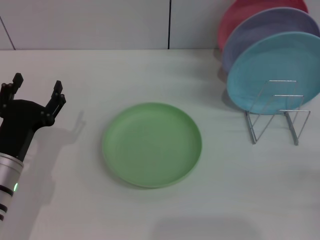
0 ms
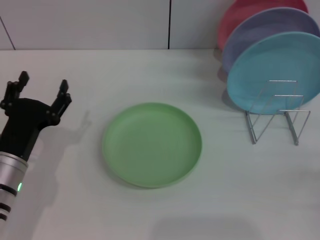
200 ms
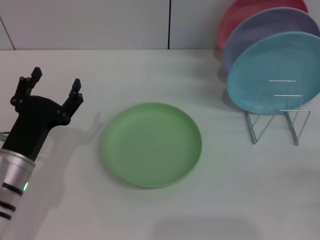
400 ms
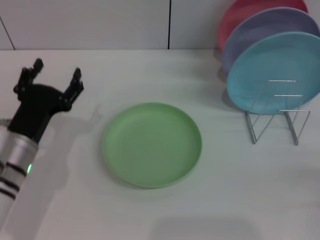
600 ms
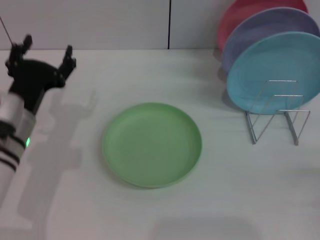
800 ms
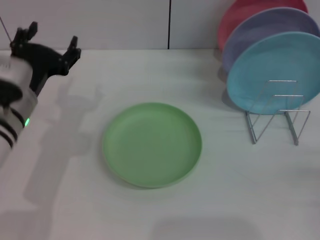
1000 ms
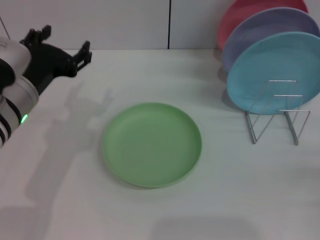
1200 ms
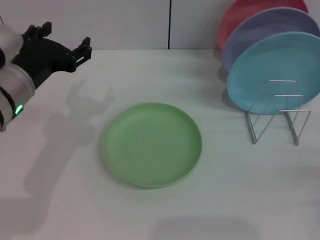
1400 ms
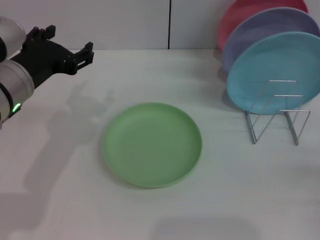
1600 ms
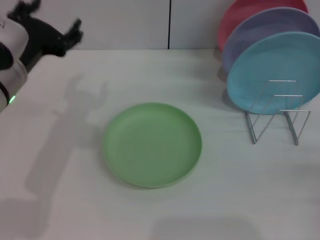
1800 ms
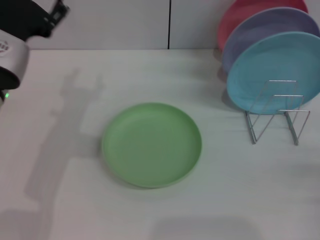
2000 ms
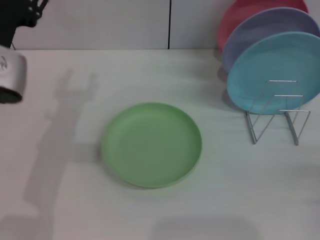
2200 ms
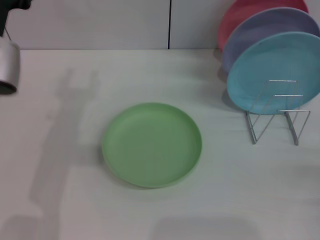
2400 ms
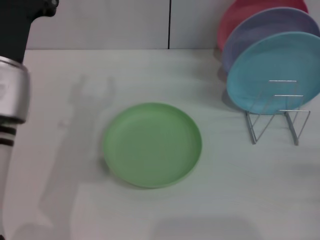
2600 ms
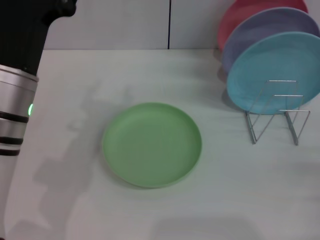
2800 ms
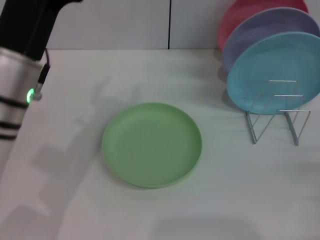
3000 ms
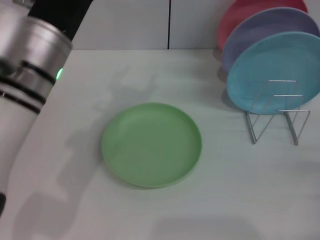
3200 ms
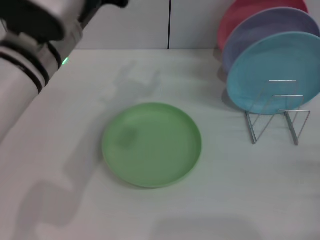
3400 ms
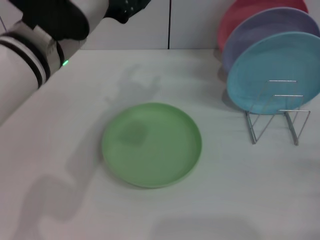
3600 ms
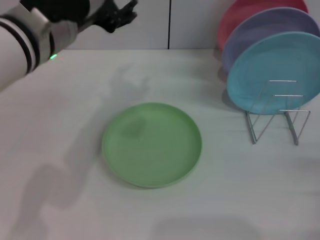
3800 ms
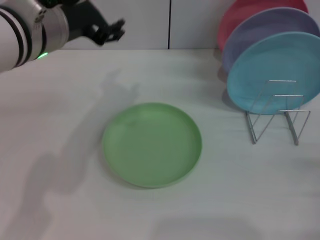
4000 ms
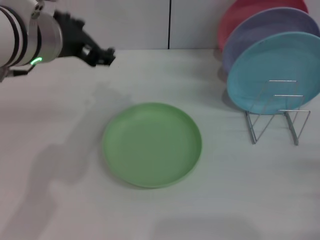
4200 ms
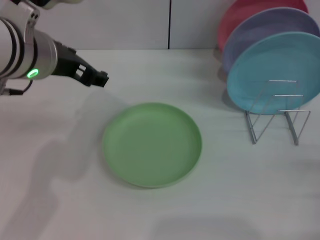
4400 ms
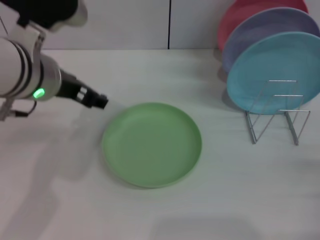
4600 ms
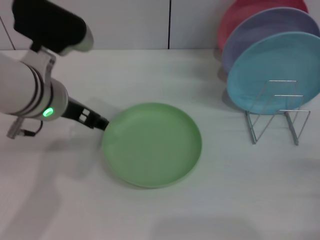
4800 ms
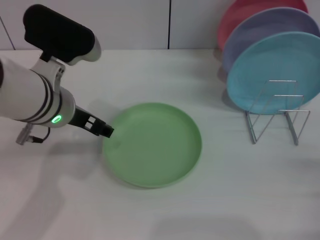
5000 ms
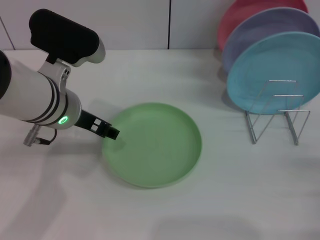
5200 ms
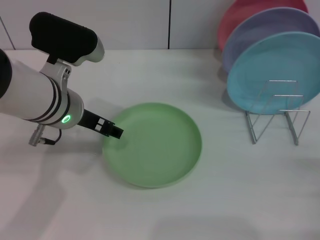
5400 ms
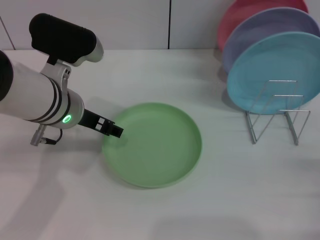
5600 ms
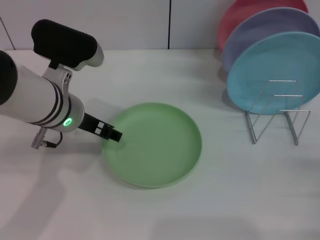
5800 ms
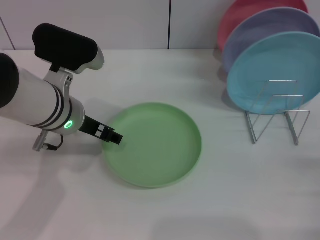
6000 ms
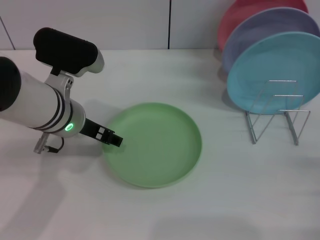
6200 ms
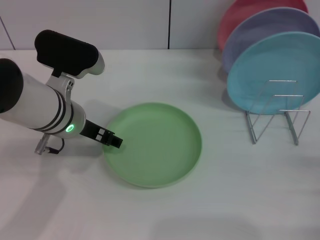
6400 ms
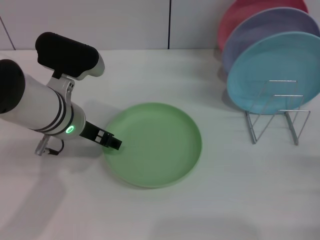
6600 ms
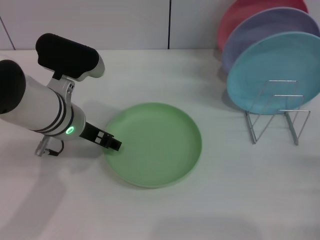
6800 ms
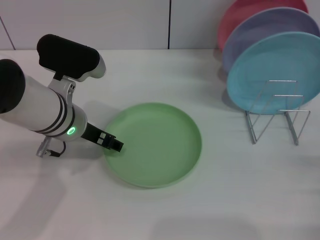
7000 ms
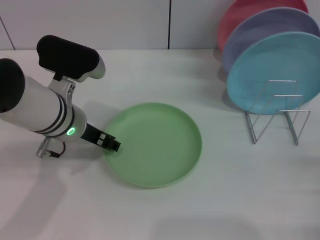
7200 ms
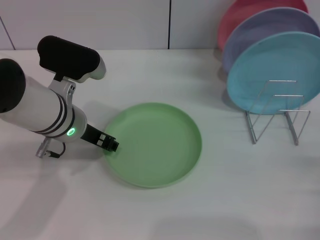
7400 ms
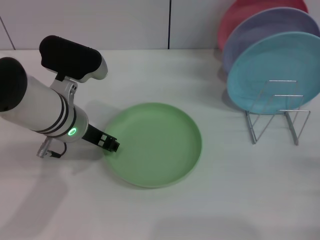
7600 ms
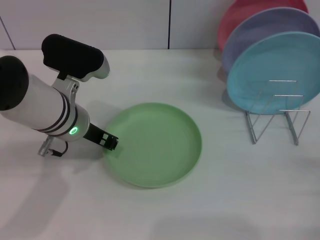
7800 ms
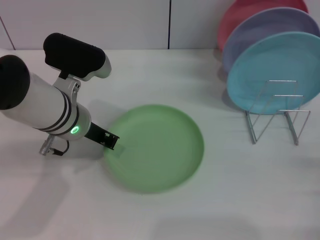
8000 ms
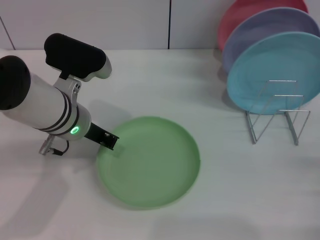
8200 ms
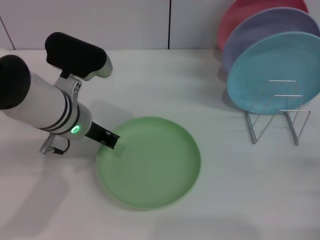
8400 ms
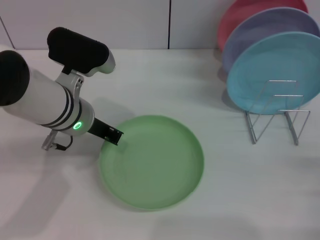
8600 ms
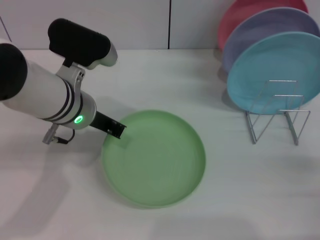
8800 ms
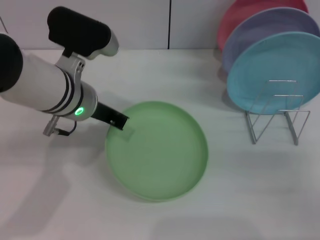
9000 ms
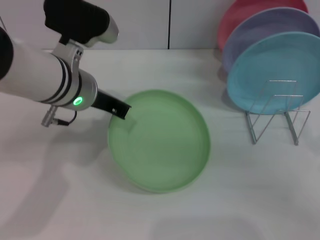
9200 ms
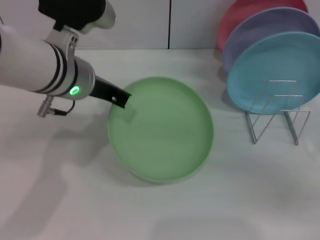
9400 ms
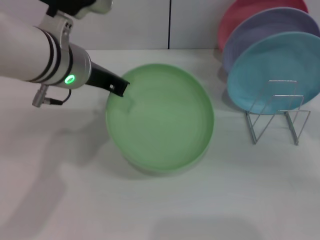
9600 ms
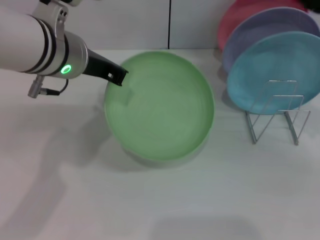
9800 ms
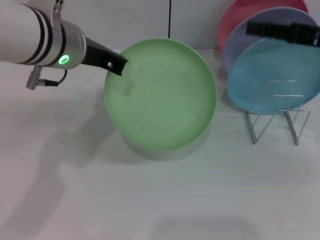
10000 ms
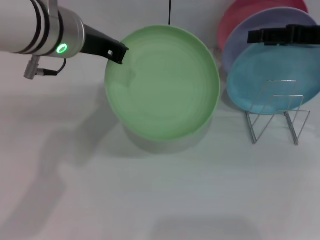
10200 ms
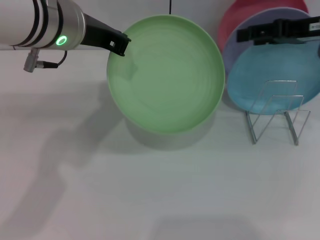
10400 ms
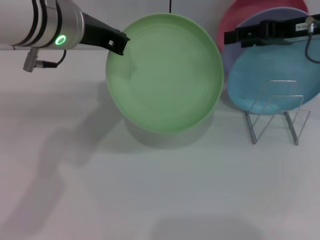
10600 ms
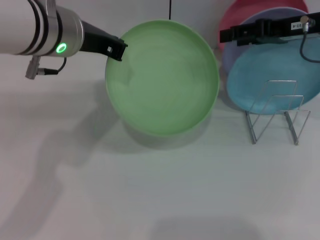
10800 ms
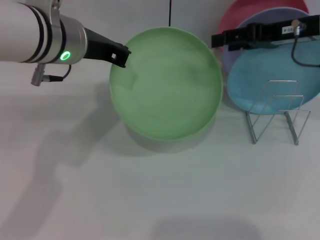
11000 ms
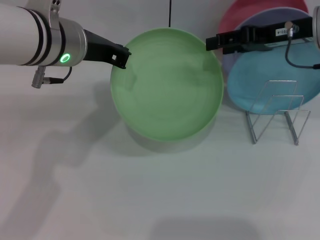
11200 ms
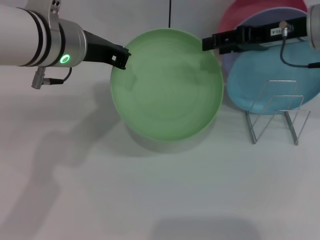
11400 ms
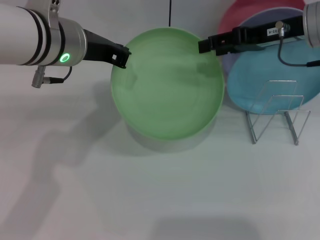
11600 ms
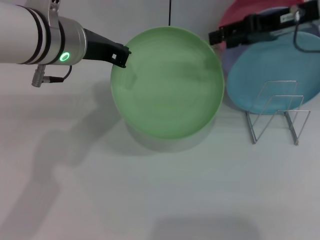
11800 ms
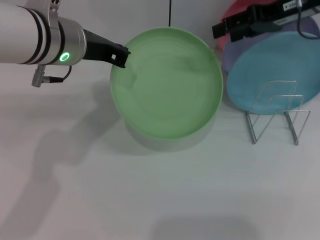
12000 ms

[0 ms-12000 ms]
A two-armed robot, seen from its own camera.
Task of the whole recording: Grip the plate with one hand, pass it to the other, then set it on the shelf.
Step, 0 ms to 9800 ms: Pick up the plate with the left gripper.
0 ms to 1600 ms: The left gripper is displaced upward and forward by about 15 cm.
1600 ms to 3000 ms: The left gripper moves some 5 cm.
3000 ms to 4400 ms: The left gripper changes place by some 5 cm.
4400 ms to 6000 ms: The left gripper moves downward, approximately 10 cm.
6000 ms to 7600 ms: The grippers stay close to where they were, moving slightly.
7600 ms to 9000 ms: The left gripper closes up.
9000 ms to 10400 ms: The left gripper shifts about 10 cm upward; the right gripper moves forward and upward, approximately 25 cm.
10400 ms to 12000 ms: The right gripper shifts by about 5 cm.

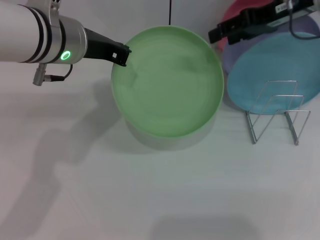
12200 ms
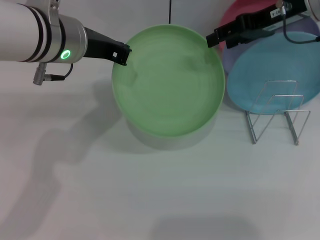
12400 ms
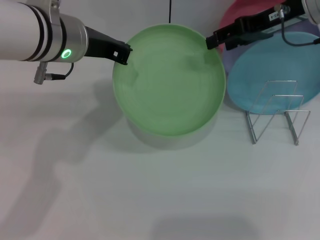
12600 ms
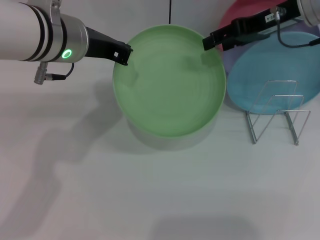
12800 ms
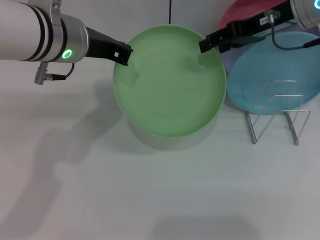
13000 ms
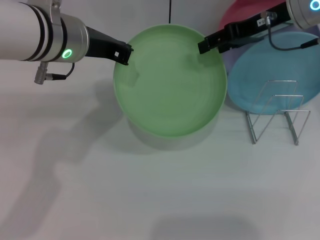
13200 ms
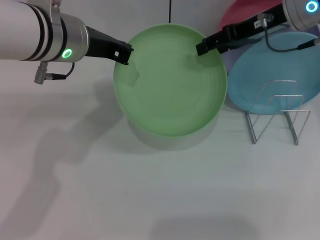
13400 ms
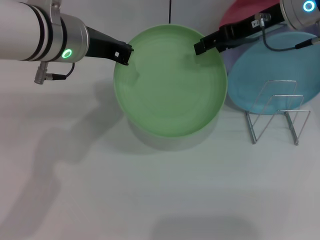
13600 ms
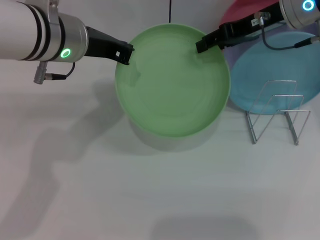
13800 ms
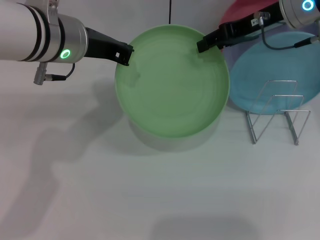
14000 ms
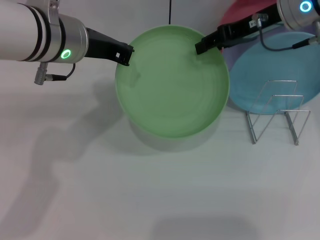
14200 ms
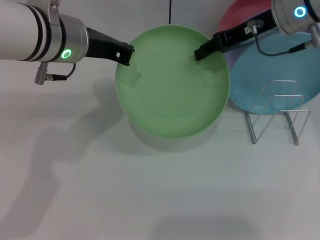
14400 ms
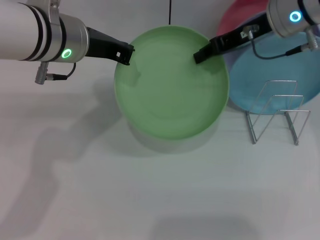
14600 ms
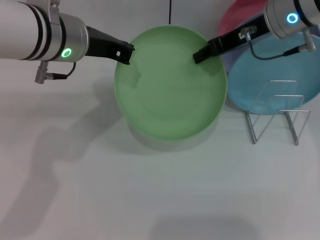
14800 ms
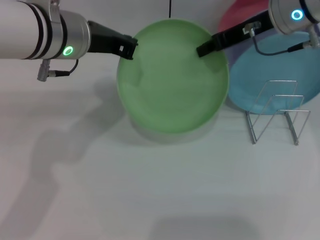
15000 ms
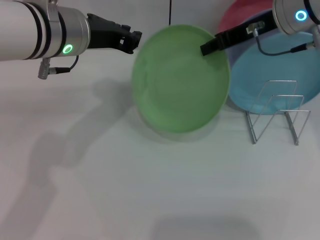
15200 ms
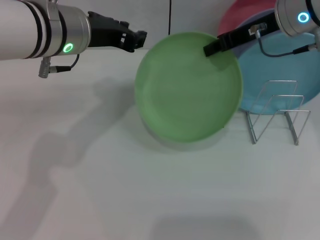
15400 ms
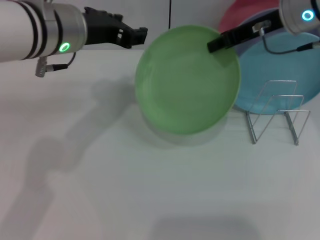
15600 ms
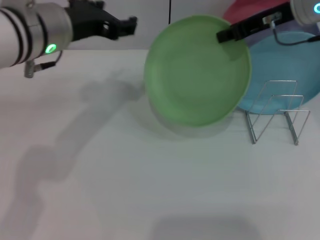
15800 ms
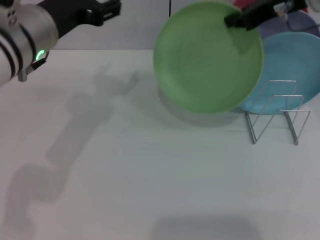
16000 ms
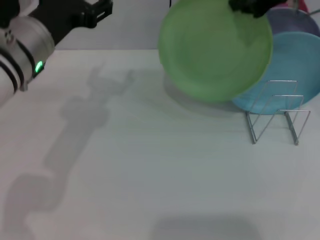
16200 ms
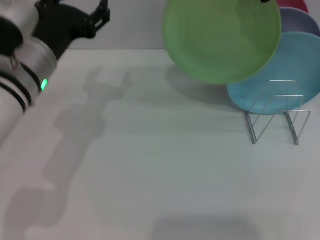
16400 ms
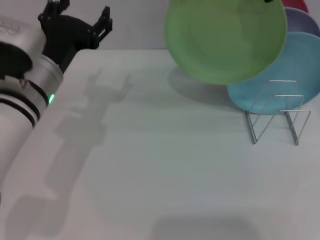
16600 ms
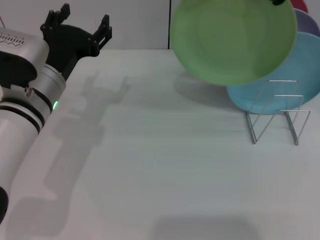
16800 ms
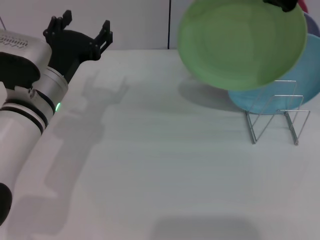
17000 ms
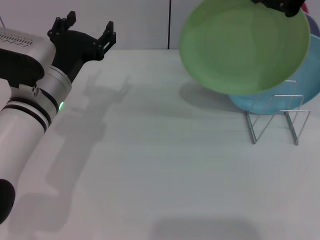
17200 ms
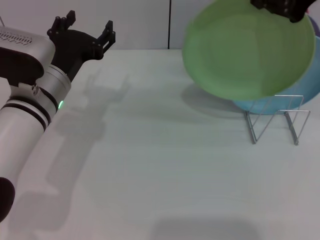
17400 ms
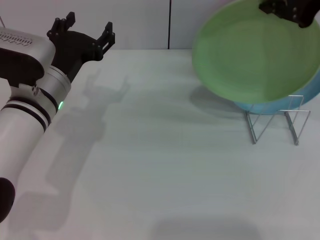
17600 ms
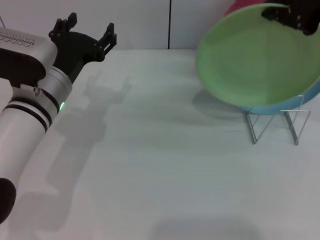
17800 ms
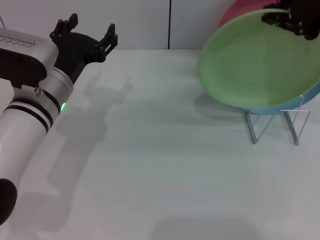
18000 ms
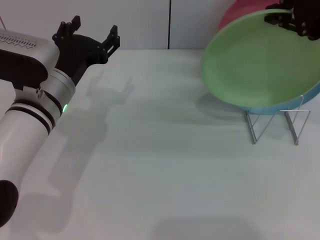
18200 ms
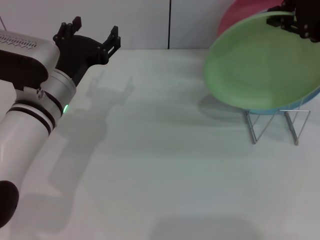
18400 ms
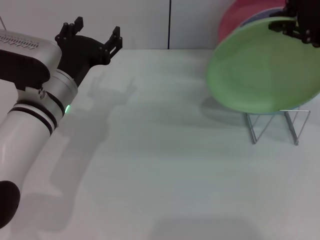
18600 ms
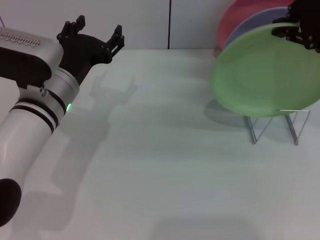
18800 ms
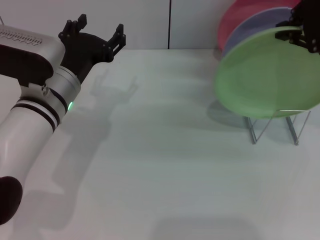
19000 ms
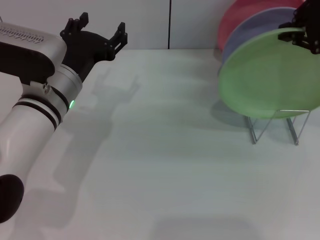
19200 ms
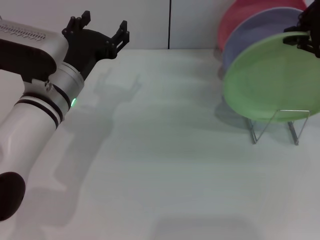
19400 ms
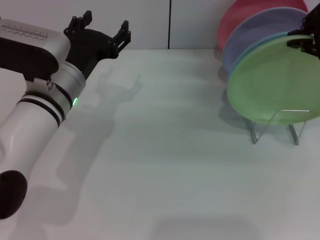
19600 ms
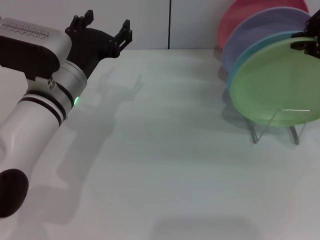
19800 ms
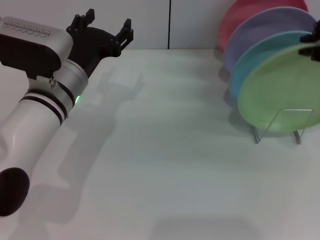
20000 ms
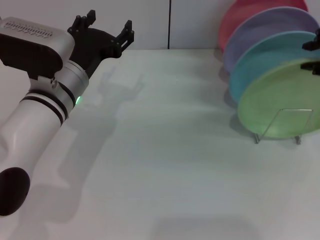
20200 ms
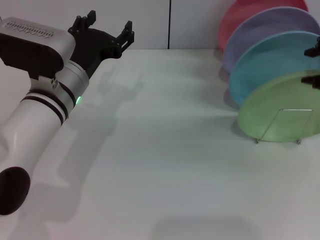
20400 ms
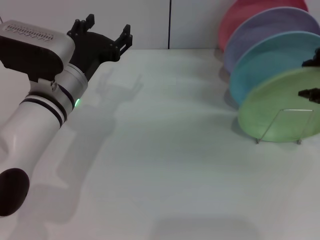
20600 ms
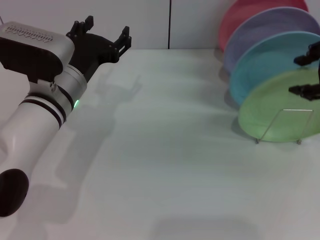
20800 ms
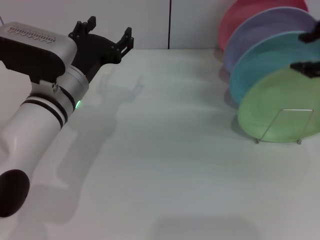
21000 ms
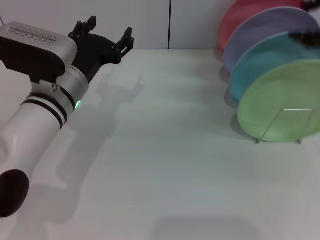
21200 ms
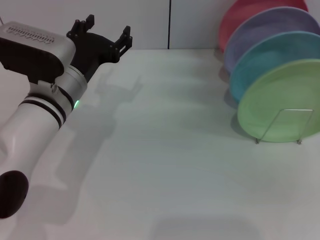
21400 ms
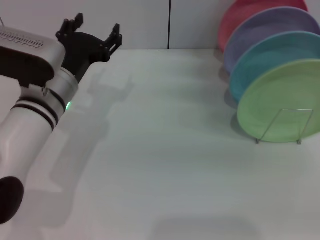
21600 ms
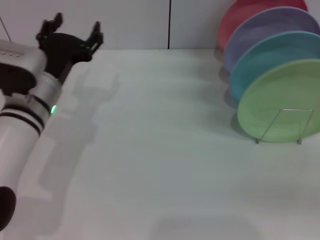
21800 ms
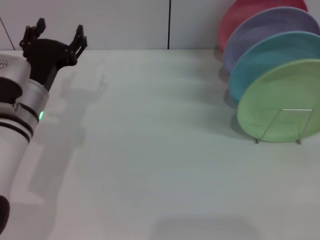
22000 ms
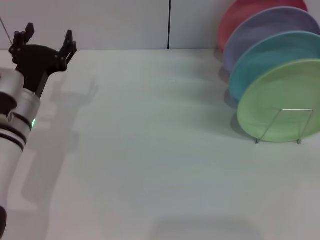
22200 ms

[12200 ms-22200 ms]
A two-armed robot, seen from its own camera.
Task of the whole recording: Grip the plate with one hand, pass it to the other, then set it on the shelf.
Step, 12200 ms to 16000 ms: Pass the plate from the left gripper to the right gripper.
Step, 16200 ms to 21000 ms: Place the plate on the shelf with the right gripper.
12200 ms to 13600 ms: The grippers move only a little.
13600 ms to 15000 ms: The right gripper closes.
15000 ms to 16400 ms: The right gripper shifts roughly 10 cm upward. The left gripper is displaced downward by approximately 5 cm, and opens its fingers.
16400 ms to 18000 ms: The right gripper travels backward by roughly 5 cm.
18000 ms to 19400 ms: The grippers move only a little.
19400 ms to 20800 ms: The right gripper opens its fingers.
20800 ms to 22200 ms: The right gripper moves downward, to the right and backward, roughly 30 cm. The left gripper moves to the left, roughly 5 cm.
